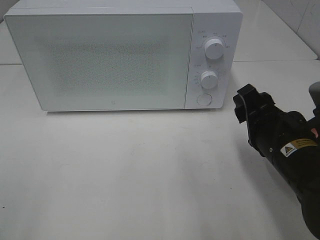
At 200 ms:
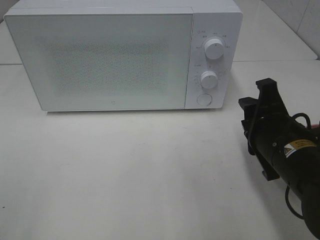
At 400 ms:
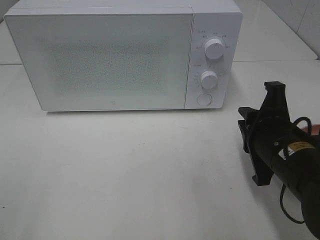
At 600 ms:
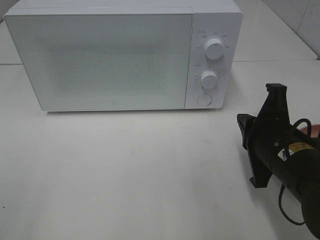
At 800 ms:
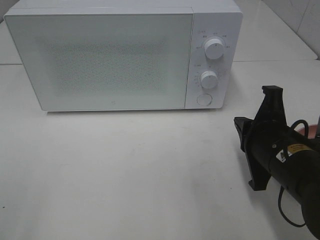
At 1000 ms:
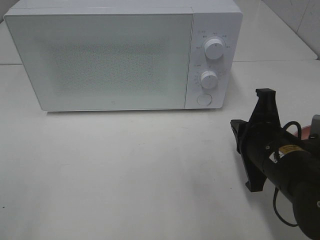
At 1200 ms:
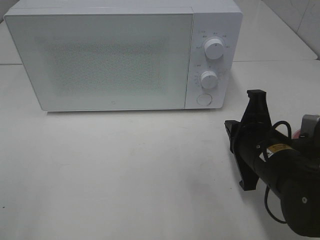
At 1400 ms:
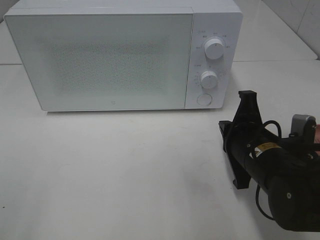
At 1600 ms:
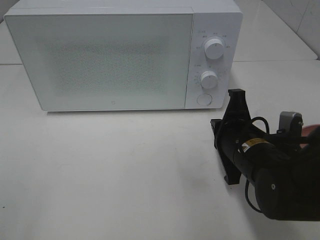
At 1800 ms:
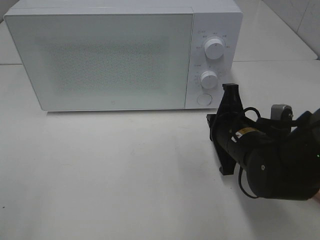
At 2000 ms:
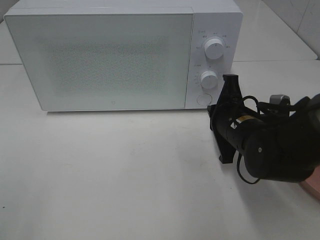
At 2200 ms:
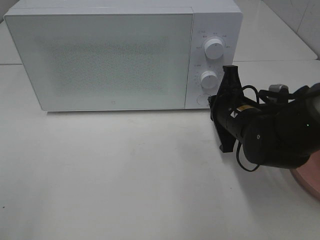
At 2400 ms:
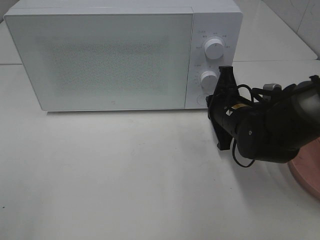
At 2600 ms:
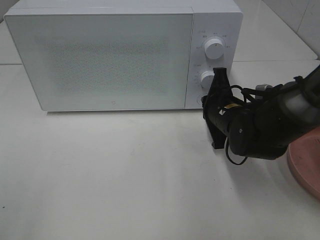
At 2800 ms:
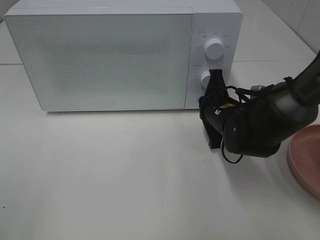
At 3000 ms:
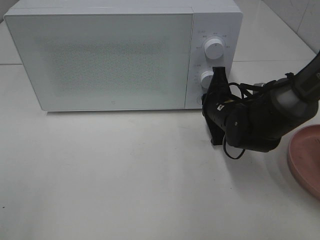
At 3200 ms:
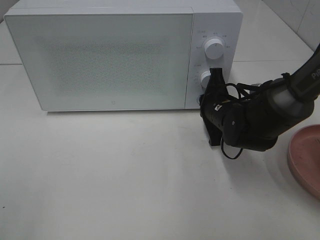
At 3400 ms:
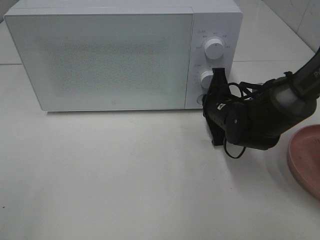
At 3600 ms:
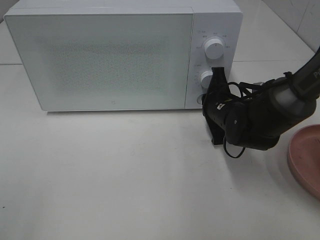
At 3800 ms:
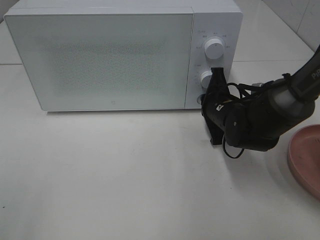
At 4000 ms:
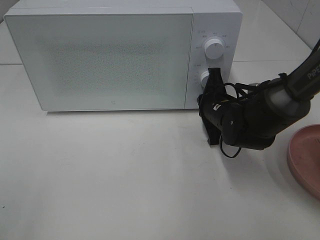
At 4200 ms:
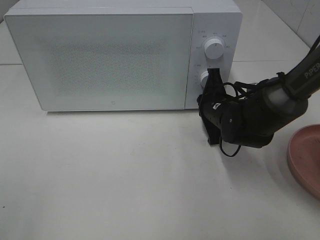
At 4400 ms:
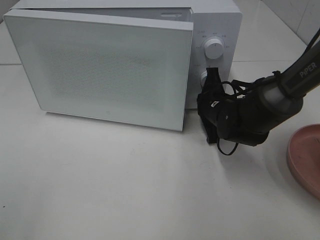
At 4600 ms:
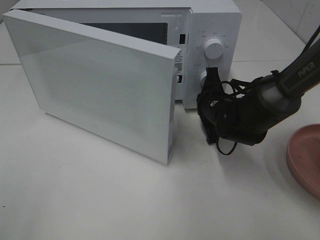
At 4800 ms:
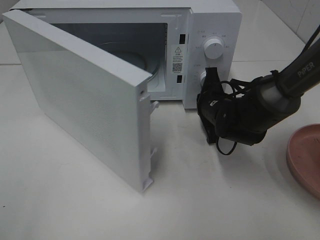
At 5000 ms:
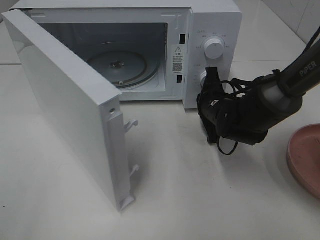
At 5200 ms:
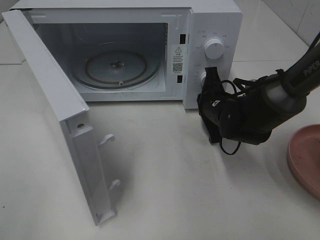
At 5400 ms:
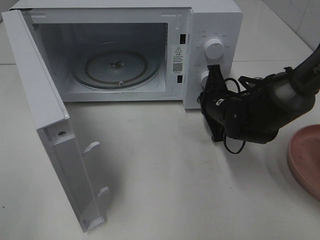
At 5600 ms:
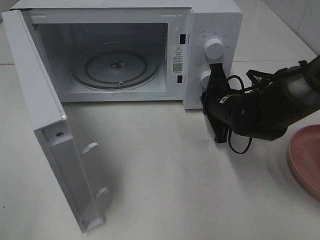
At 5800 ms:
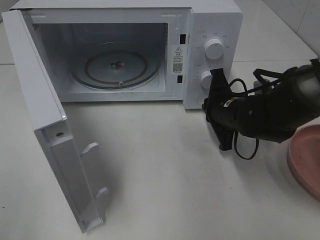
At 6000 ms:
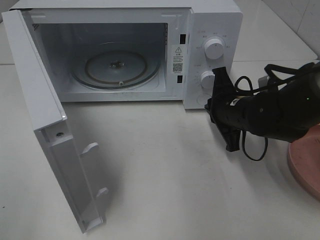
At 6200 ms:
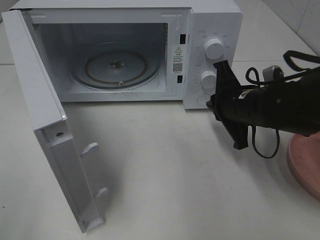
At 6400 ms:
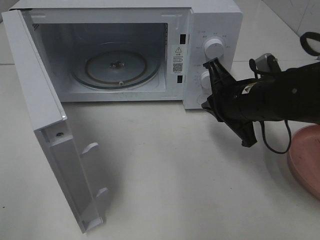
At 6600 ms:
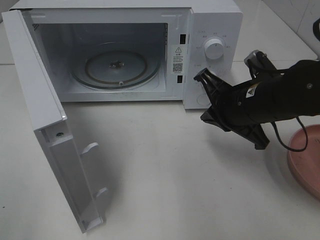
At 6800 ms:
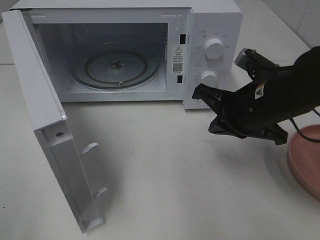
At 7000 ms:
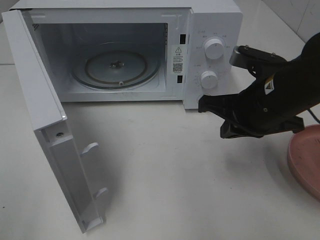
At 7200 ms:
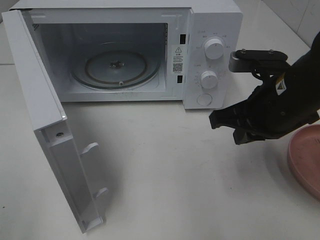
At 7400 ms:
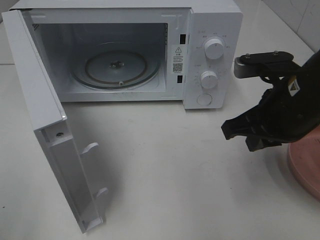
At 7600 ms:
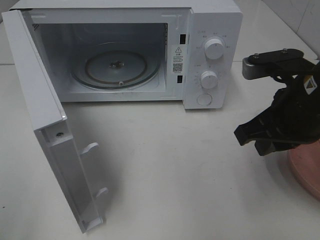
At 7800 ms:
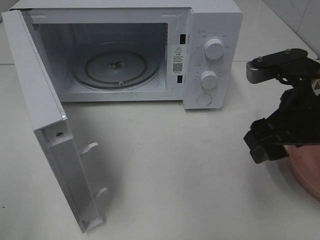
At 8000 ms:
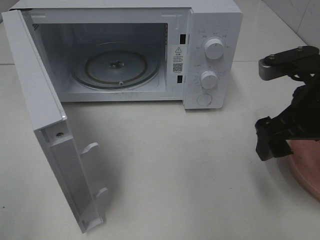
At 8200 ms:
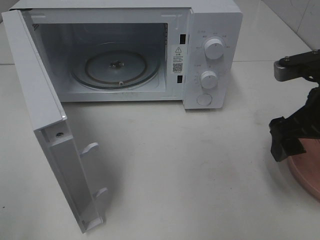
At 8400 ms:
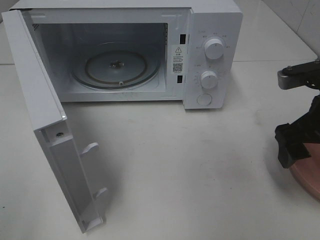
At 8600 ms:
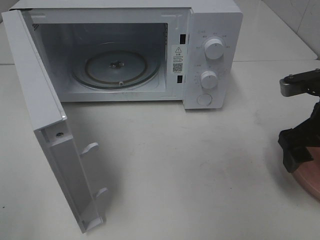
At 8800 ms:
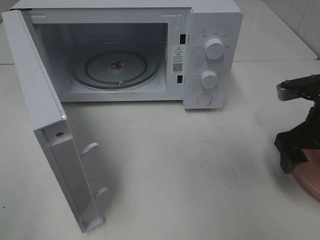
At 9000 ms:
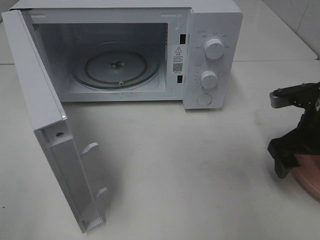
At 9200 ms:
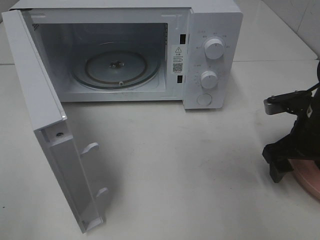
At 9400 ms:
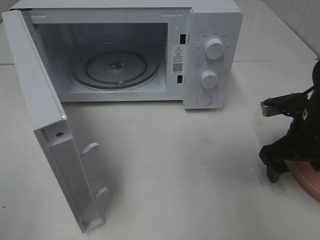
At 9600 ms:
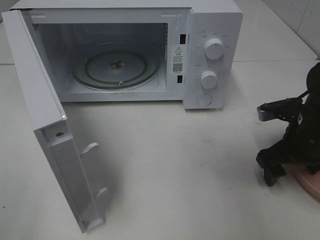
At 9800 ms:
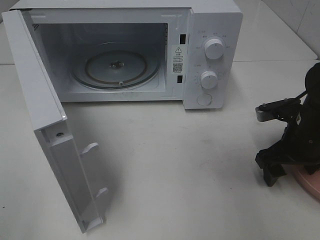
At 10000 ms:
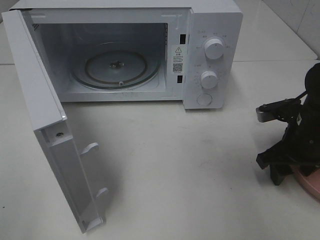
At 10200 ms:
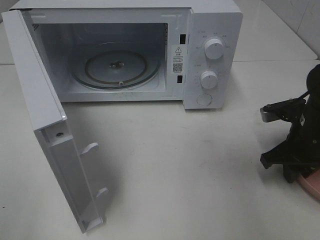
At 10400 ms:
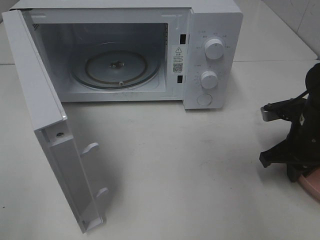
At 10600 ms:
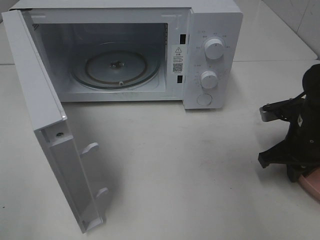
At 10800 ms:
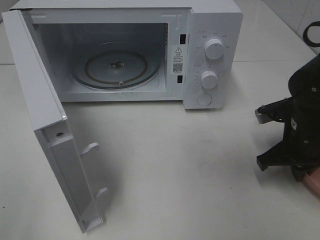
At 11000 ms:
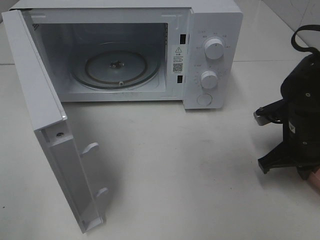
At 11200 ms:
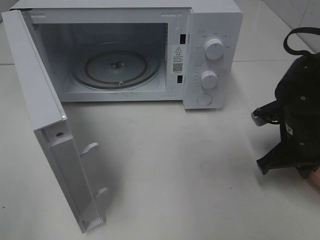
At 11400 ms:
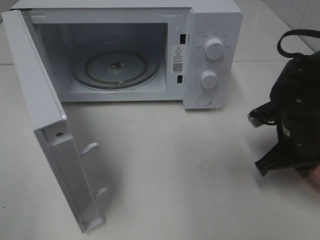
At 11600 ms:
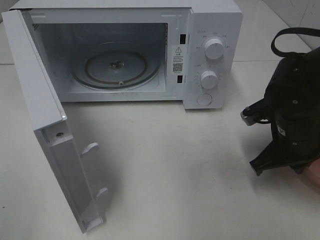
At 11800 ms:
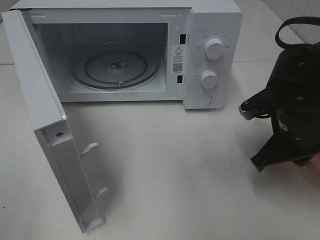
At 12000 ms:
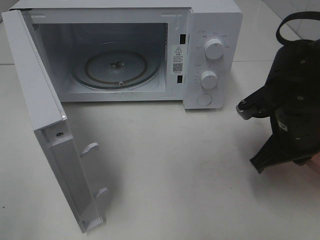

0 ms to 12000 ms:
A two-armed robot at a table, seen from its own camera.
Task of the whole recording: Heat the burger.
Step, 0 ms to 5800 ms: Right hand: press the switch.
Step, 6000 ms to 11000 ms: Right hand: grab the plate with the hamburger.
0 ms to 1600 ms: The right gripper moves approximately 5 cm, and closes its fingers.
1600 ms to 3000 ms: The right gripper is displaced forward by some 10 cm.
3000 ms to 4400 ms: The grippers make only small movements.
4400 ms to 6000 ms: The right gripper ends up about 5 cm from where it was.
6000 ms to 7600 ms: The right gripper shifts roughly 15 cm upward and backward.
7600 ms to 9000 ms: The right gripper shifts roughly 10 cm downward and to the right, and opens its fingers.
9000 ms to 10400 ms: The right gripper closes.
10400 ms to 12000 ms: The right gripper is displaced to the left by approximately 5 cm.

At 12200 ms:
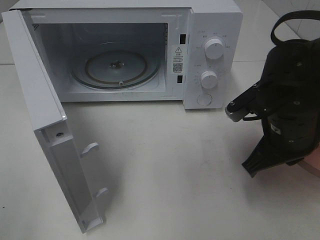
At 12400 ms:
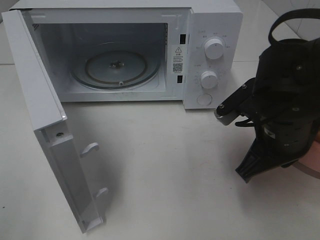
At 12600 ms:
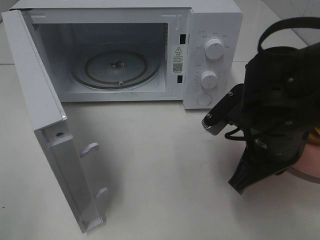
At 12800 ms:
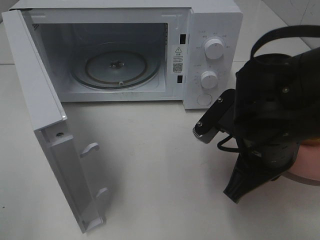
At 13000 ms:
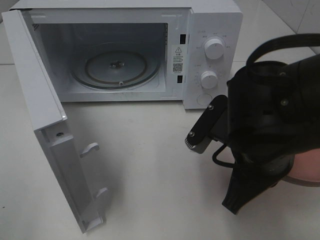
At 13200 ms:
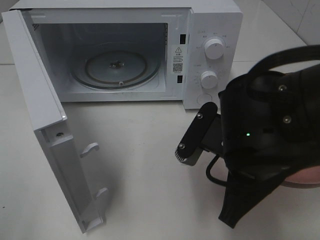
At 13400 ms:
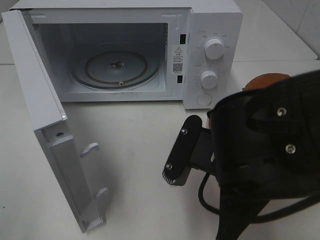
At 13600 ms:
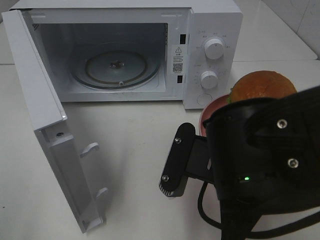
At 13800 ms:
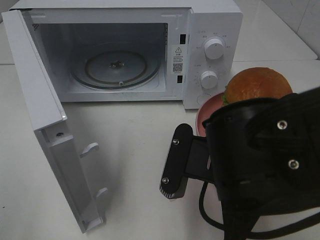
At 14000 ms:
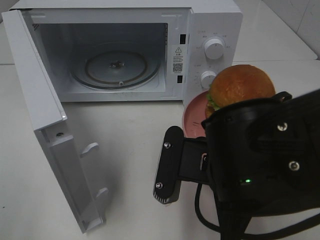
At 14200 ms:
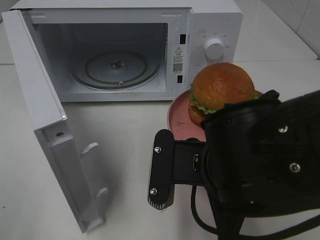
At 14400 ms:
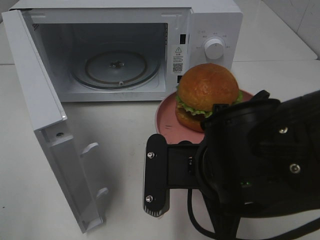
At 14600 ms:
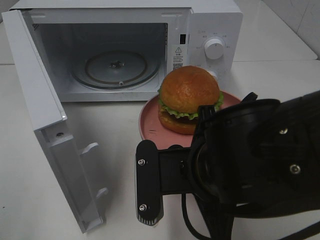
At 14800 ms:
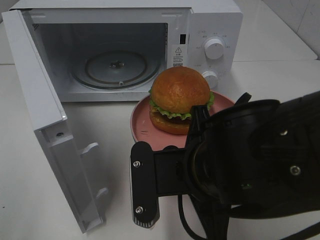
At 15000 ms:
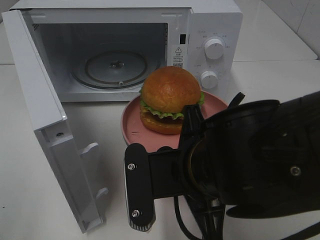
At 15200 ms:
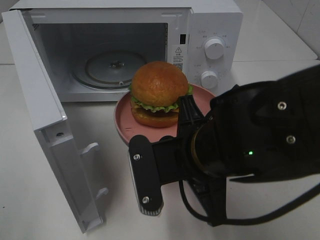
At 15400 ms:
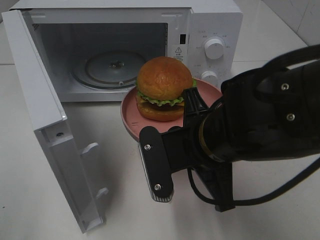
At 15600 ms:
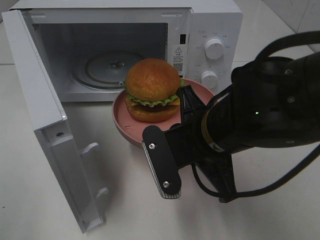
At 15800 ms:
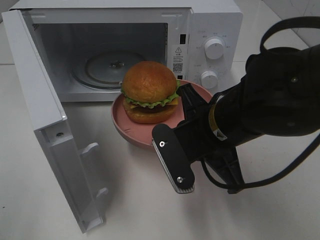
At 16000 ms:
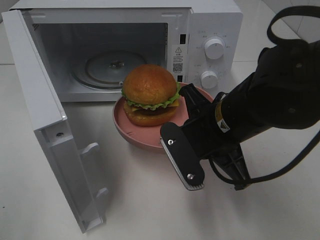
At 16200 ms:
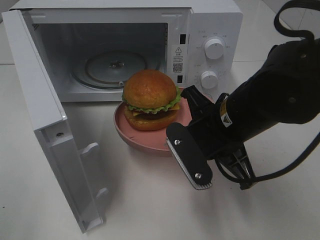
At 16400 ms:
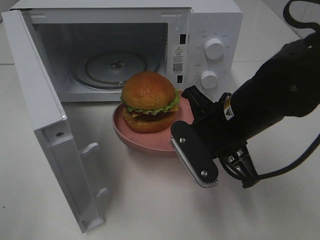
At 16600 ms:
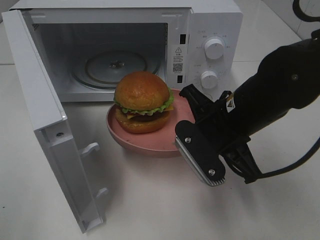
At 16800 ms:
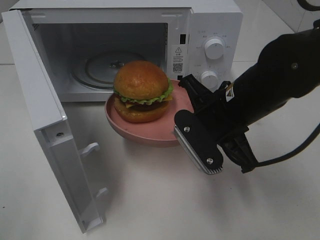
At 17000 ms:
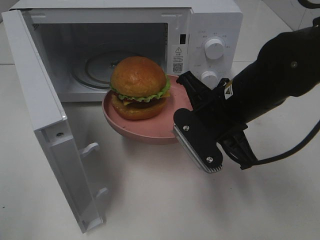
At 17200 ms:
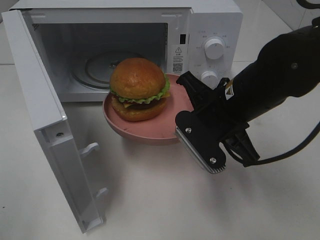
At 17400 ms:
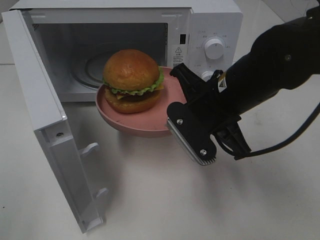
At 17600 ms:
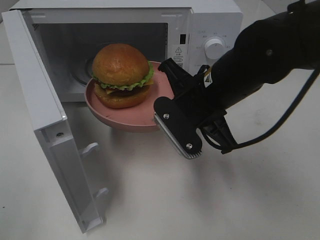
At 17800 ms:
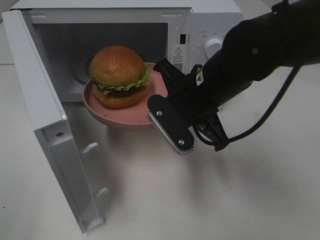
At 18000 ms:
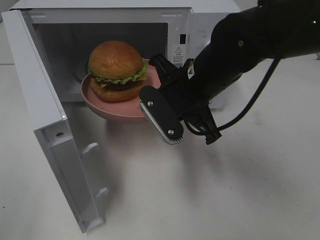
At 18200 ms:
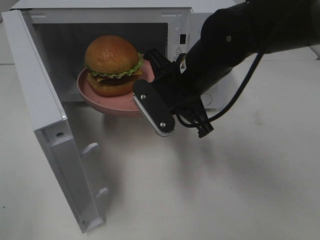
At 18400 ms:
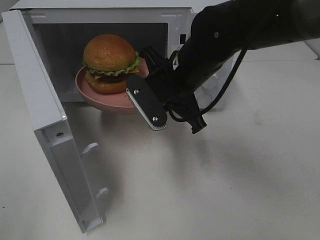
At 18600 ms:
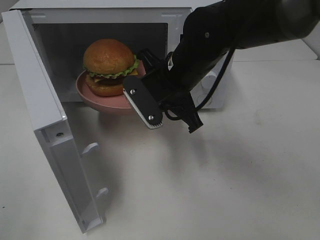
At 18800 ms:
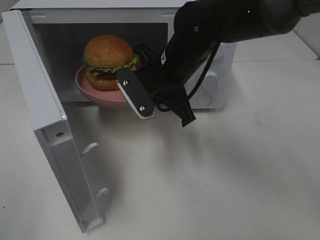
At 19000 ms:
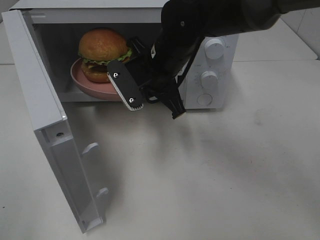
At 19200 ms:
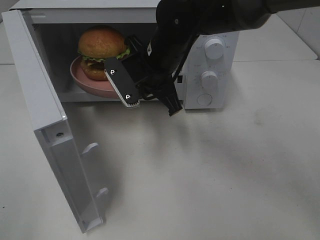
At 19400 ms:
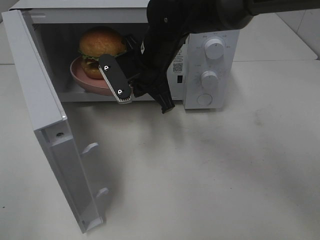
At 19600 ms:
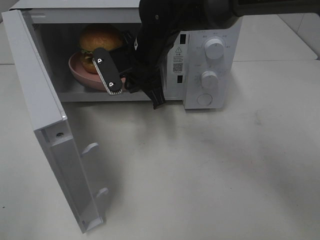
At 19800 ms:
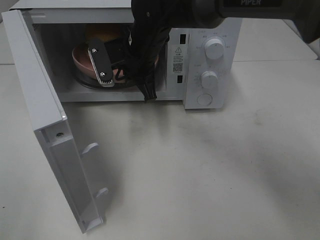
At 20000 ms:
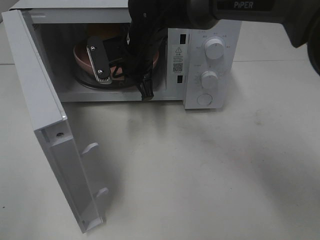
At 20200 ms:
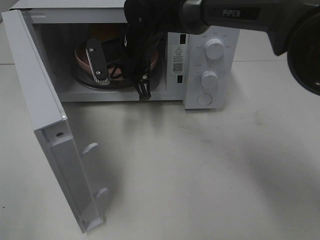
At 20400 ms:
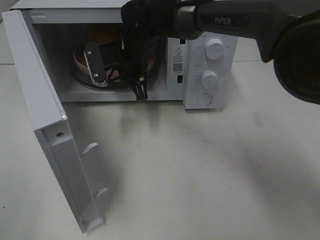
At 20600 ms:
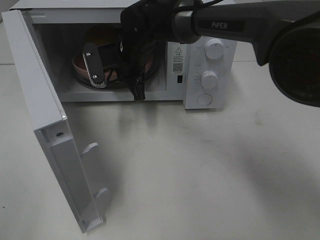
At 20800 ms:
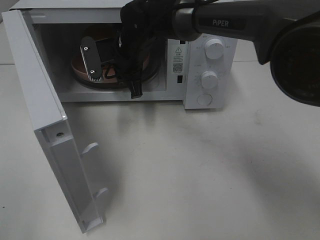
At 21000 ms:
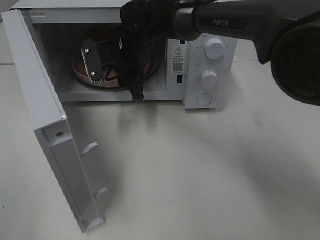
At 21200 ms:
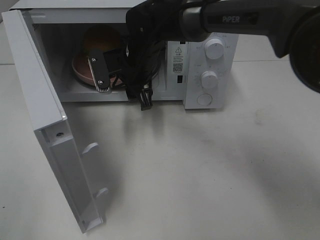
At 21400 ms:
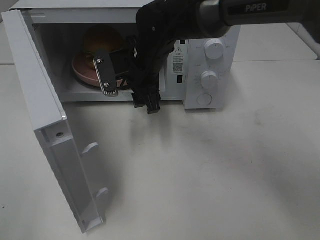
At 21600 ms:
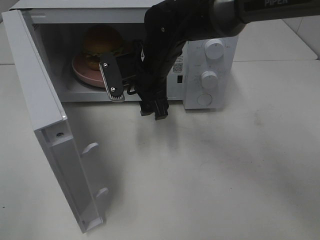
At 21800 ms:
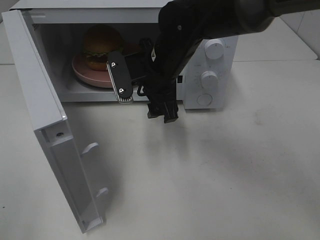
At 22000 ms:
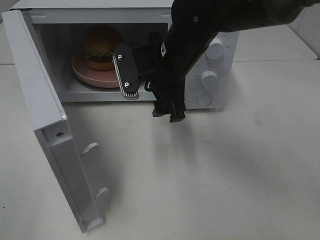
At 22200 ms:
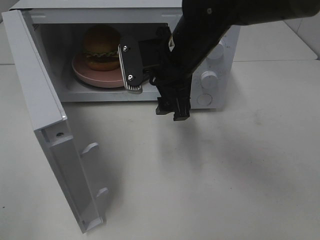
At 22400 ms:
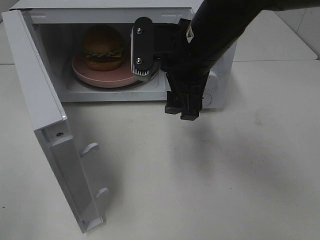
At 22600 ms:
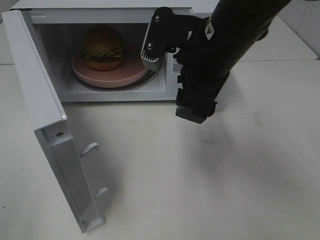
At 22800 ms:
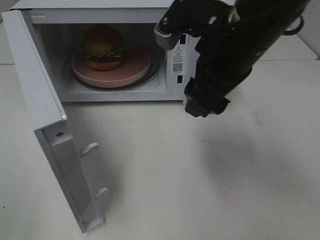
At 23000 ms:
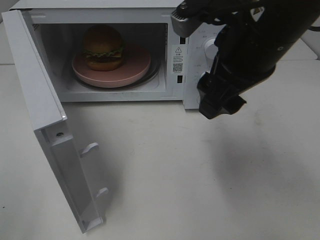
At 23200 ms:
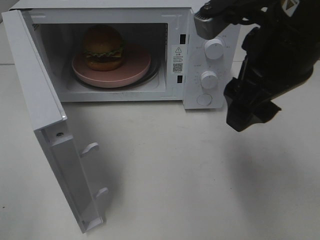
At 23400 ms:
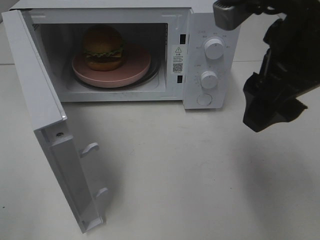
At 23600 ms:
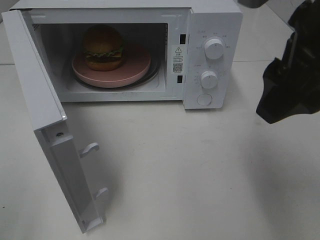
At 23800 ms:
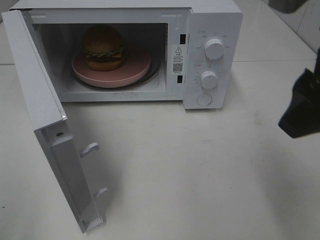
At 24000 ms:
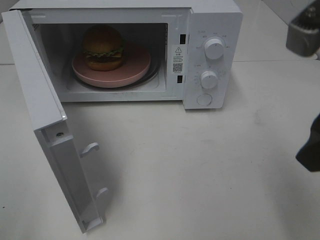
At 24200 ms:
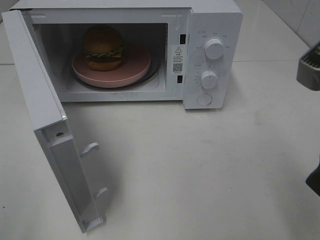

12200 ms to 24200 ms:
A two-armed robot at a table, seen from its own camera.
Task of the whole recording: Heat the burger.
Step, 12200 ms to 21000 ms: Right hand: place the plate in the microwave.
12200 ms to 13800 ms: The right gripper shifts approximately 15 cm backward and to the left.
15200 ms to 16600 ms: The right gripper is displaced forward and to the right by roughly 10 cm.
16600 ms to 18200 ms: The right gripper heads forward and to the left, covering roughly 10 cm.
18200 ms to 19800 ms: The right gripper is displaced forward and to the left by approximately 10 cm.
19800 ms to 21200 ms: The right gripper opens its fingers.
21200 ms to 22600 ms: The right gripper heads backward, to the right and upward, covering approximately 20 cm.
22600 ms to 24200 ms: The right gripper moves backward and to the right, approximately 20 cm.
